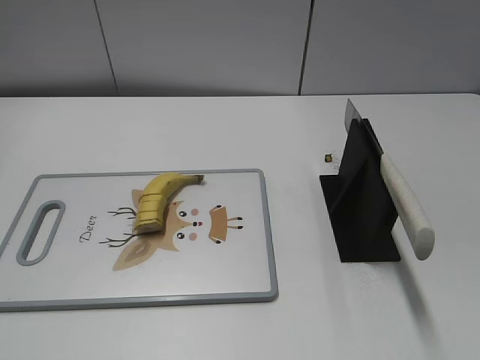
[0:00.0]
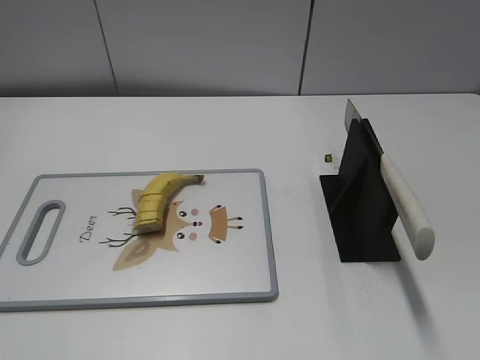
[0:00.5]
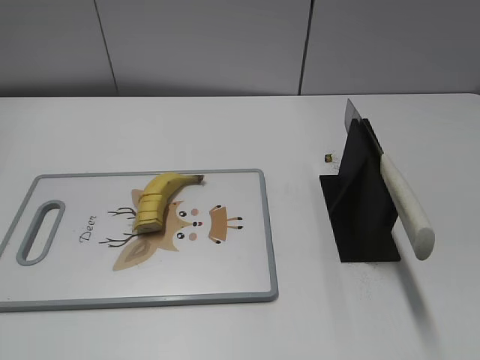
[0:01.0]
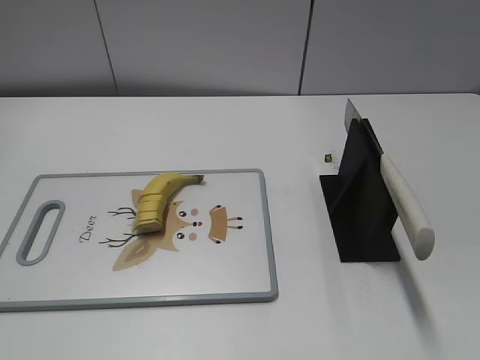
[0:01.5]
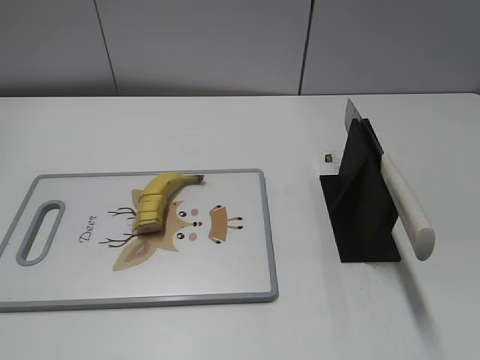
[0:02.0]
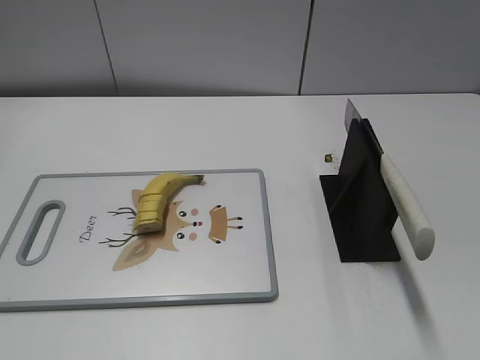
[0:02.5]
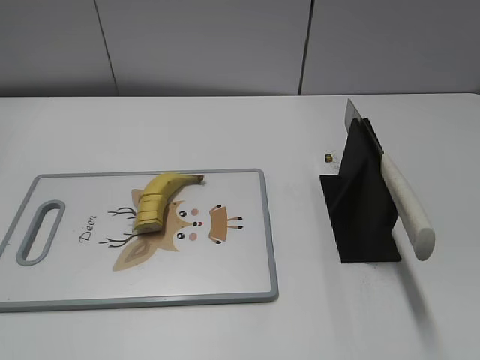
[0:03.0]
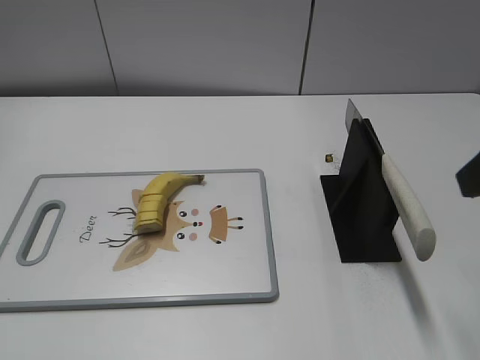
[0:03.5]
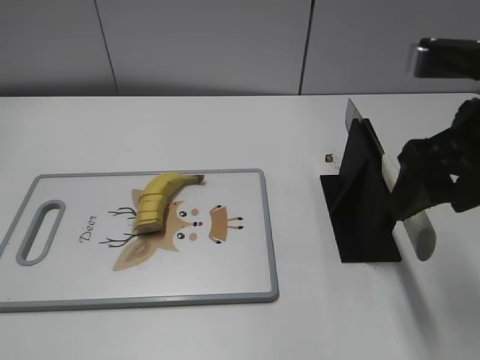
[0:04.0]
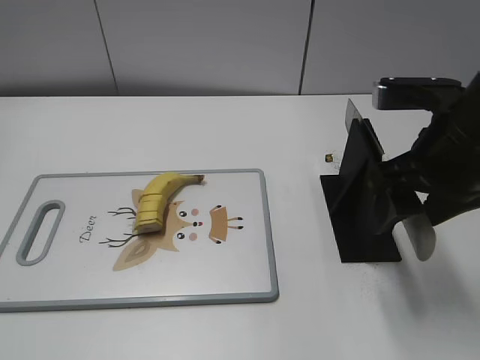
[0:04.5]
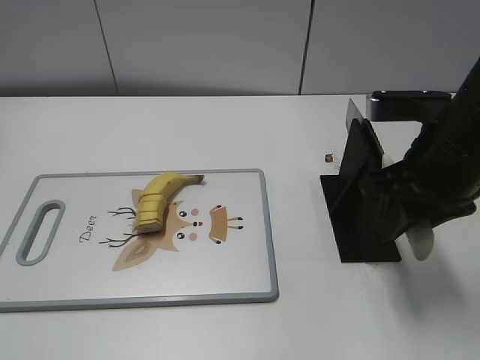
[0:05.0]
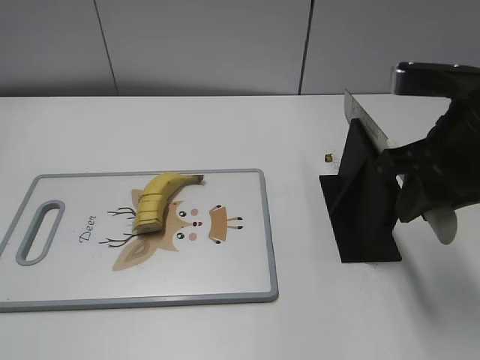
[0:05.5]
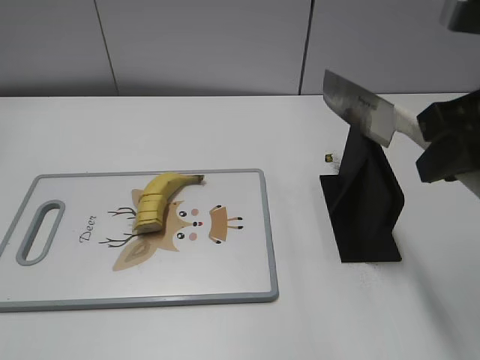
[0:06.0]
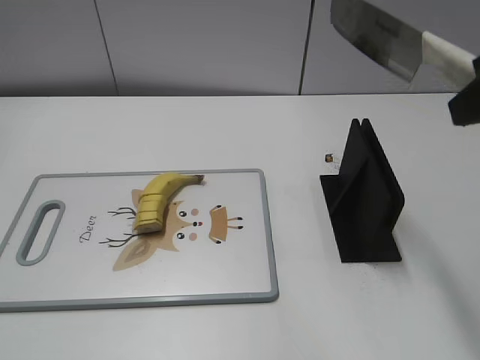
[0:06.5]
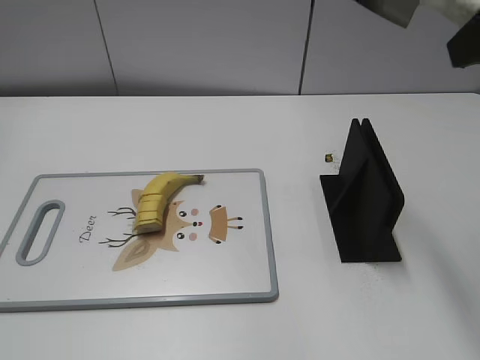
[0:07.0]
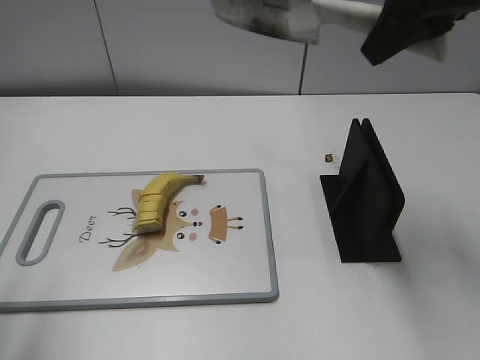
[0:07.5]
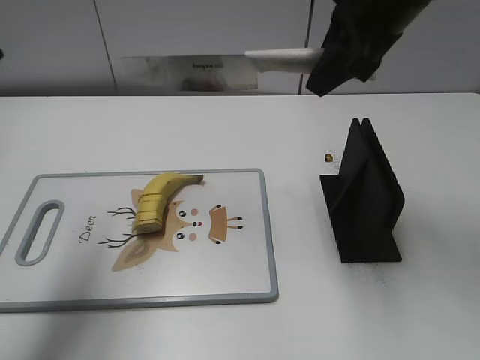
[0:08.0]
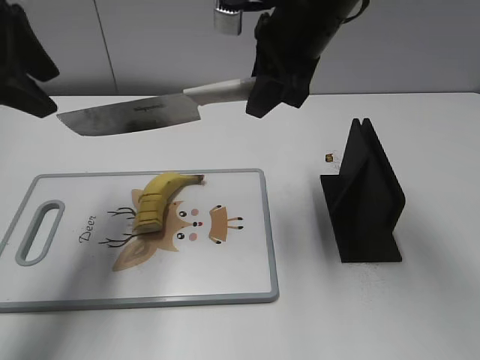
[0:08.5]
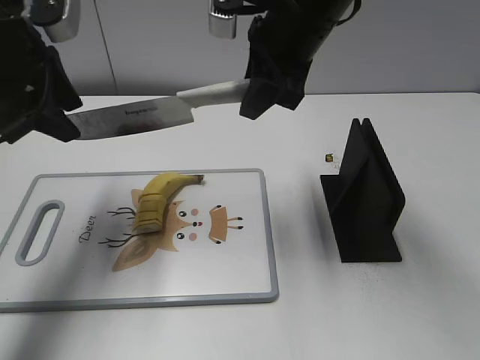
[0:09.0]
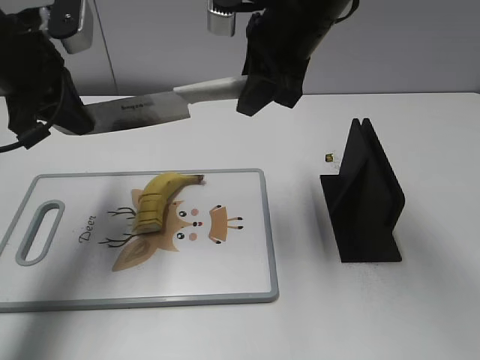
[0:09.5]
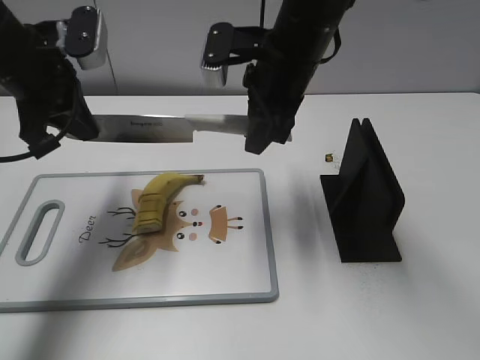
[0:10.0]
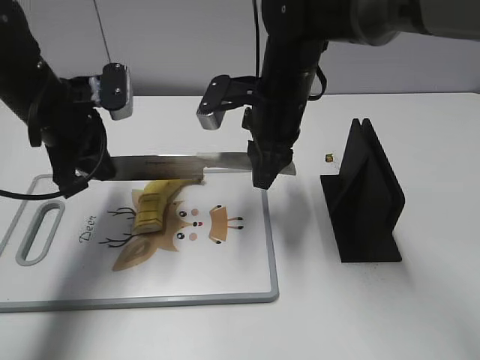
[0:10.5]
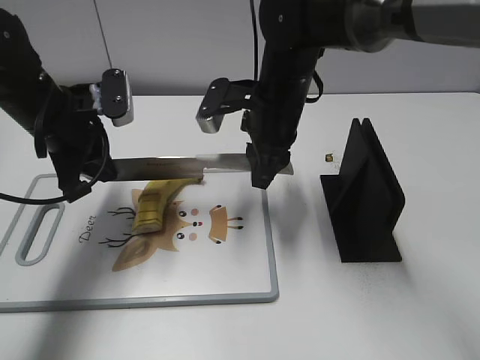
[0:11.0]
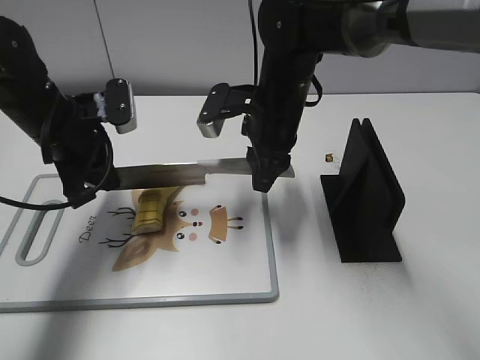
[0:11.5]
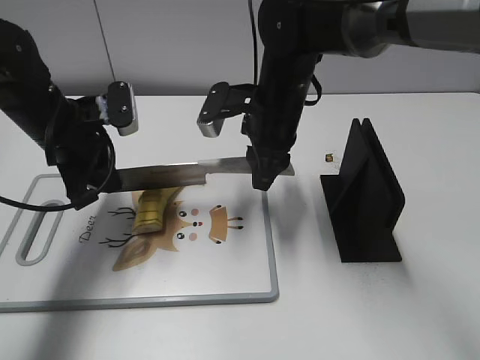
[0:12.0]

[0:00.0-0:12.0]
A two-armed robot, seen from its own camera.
Task of the whole recording: cut banana.
Step, 0:00.0 to 0:06.0: Grab the knife handle with your right hand.
0:02.0 to 0:04.0: The right gripper travels forward by approximately 25 cm.
0:04.0 to 0:06.0: The right gripper closes.
0:06.0 to 0:08.0: The left gripper shifts about 25 cm forward and upward. The right gripper is displaced forward and to the left by approximately 15 cm.
0:08.0 to 0:10.0: The right gripper moves downward and to the left, approximately 10 cm; the left gripper heads downward and forward, covering about 15 cm, and closes.
0:10.0 to 0:12.0: Both grippers move downward, about 10 cm.

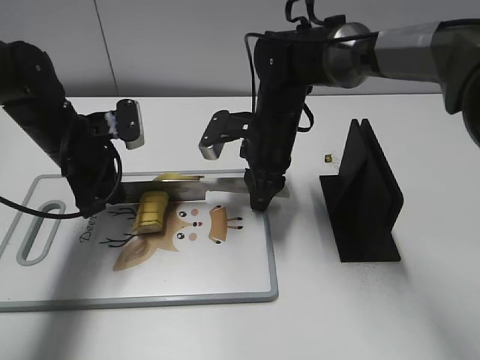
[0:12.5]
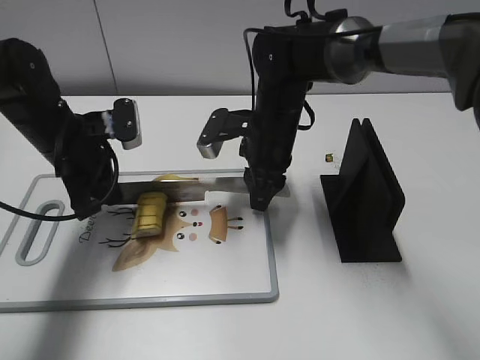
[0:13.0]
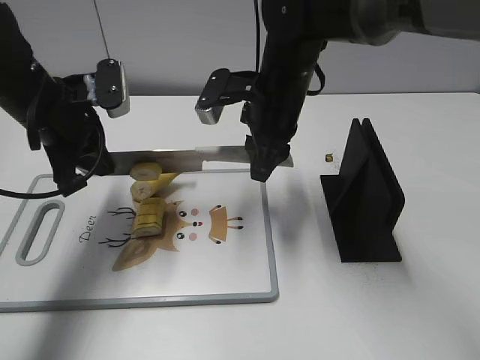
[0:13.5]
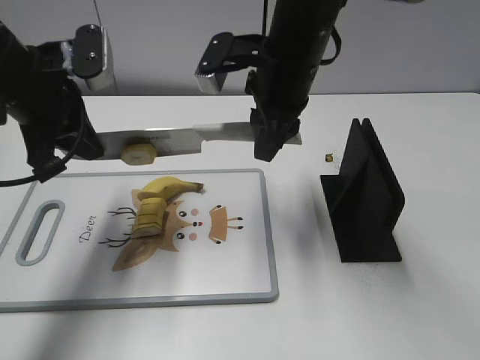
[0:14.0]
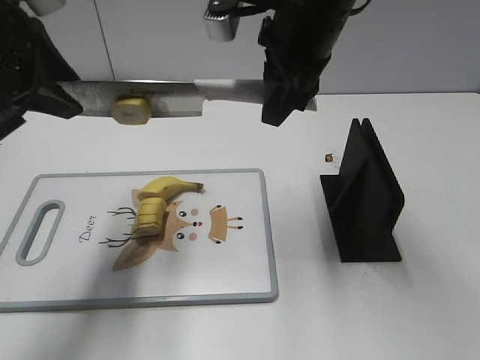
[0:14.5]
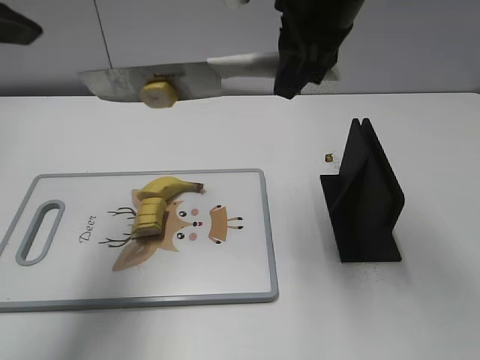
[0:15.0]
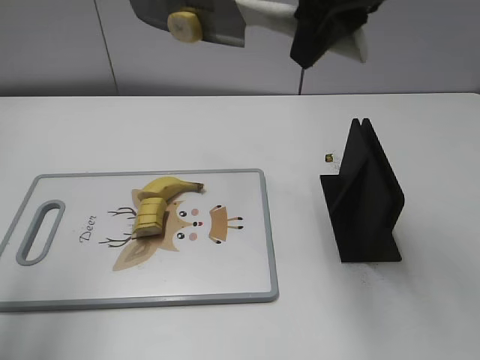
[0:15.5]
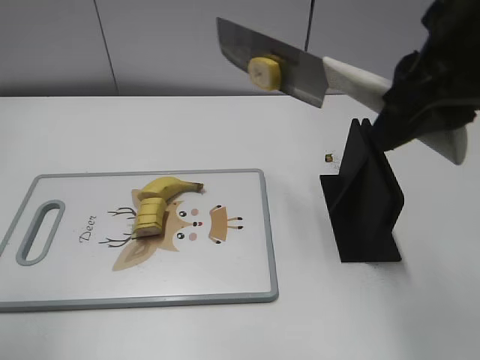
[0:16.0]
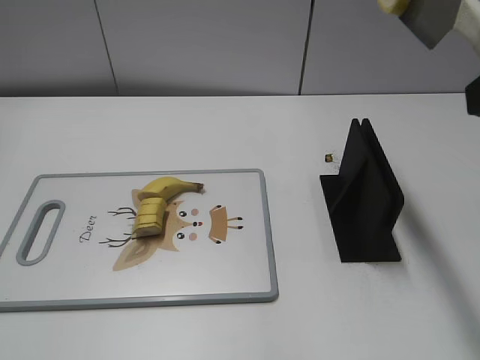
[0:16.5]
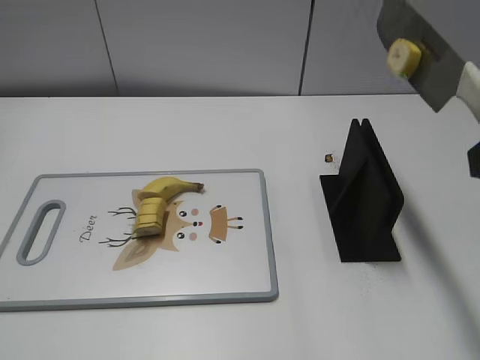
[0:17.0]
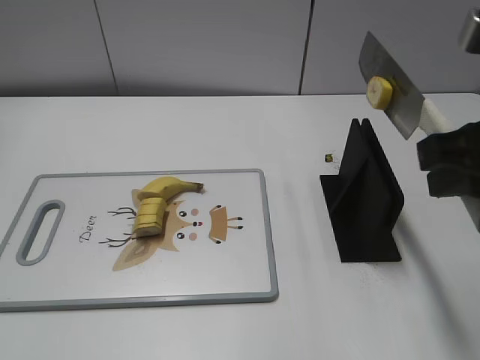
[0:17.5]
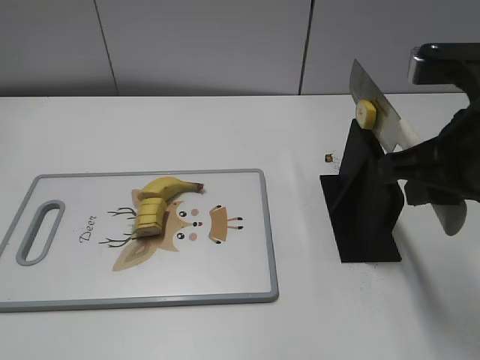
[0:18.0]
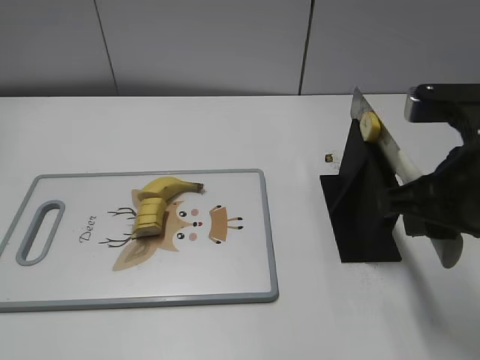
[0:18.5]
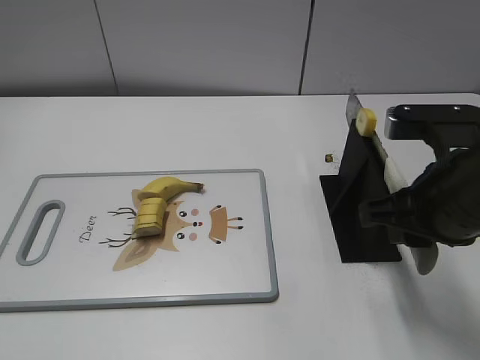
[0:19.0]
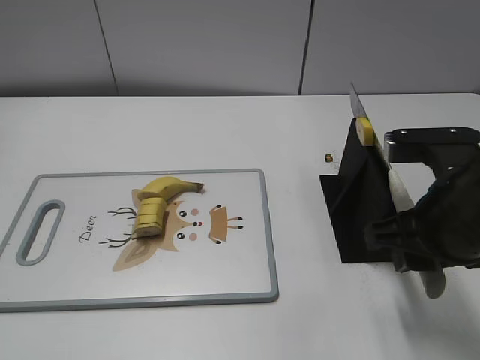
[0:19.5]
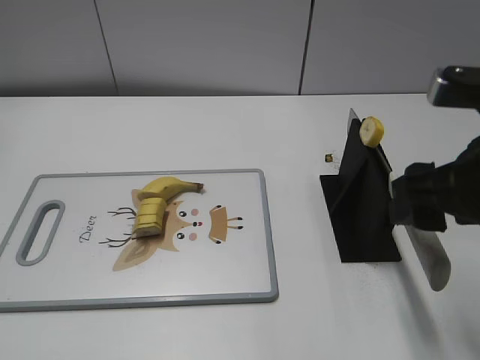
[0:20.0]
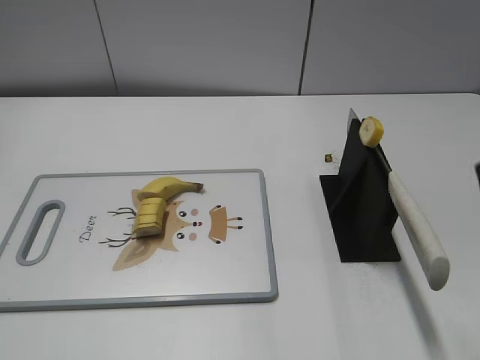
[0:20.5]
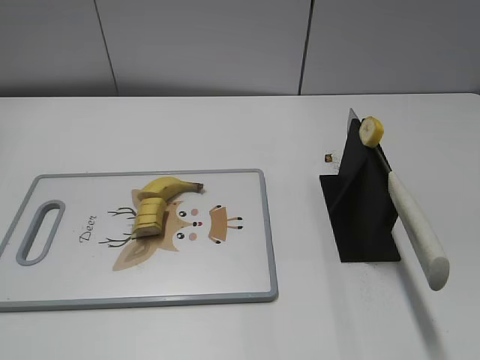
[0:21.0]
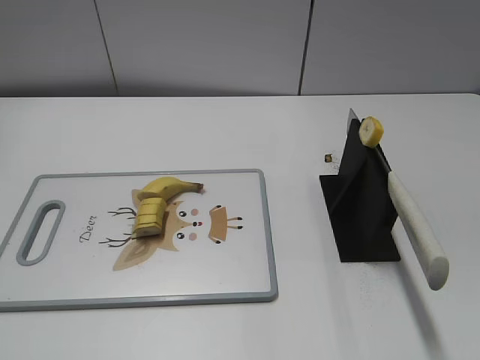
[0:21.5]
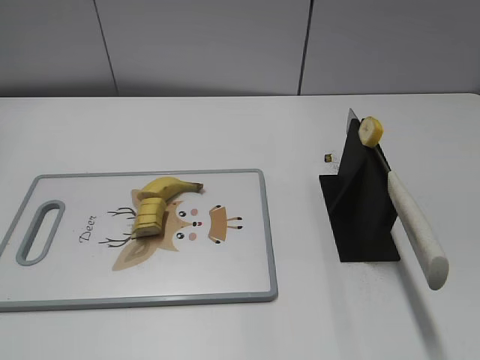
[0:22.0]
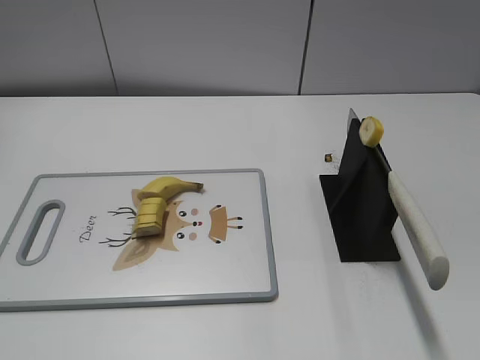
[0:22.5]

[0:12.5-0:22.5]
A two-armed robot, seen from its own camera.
Task of the whole recording: cut banana.
Step, 0:12.5 to 0:15.5: Cut the banana with your left hand.
Step, 0:16.0 to 0:18.0: Lift the knife with your right hand.
Step, 0:18.5 to 0:22.5: Place the knife on the storage rack with your right hand.
0:12.5 to 0:14.5: The left gripper heads upward and backward, covering roughly 20 cm, and opens its fingers; the right gripper shifts approximately 20 cm upward.
0:14.5 to 0:16.5: The right gripper heads backward, to the right and upward, covering about 25 cm. The left gripper travels backward by about 25 cm.
0:16.5 to 0:18.5: The right gripper goes roughly 15 cm downward.
0:18.5 to 0:20.5: The right gripper heads upward and backward, covering roughly 15 cm, and opens up.

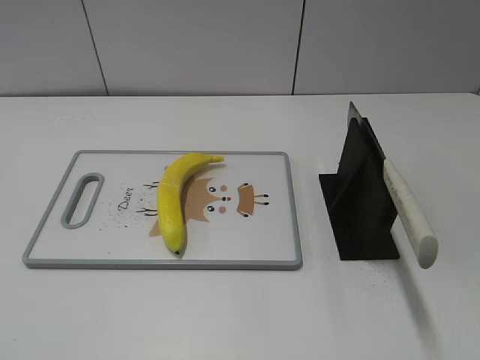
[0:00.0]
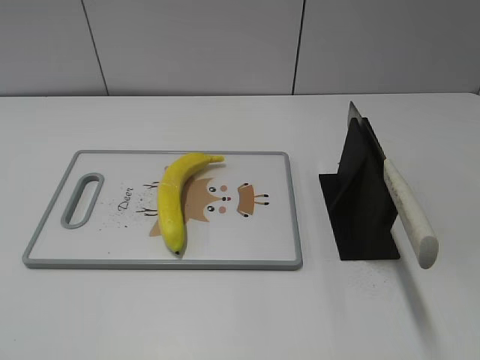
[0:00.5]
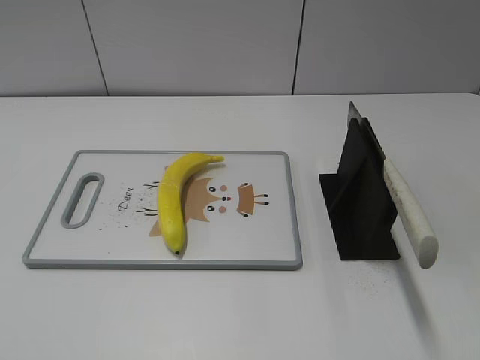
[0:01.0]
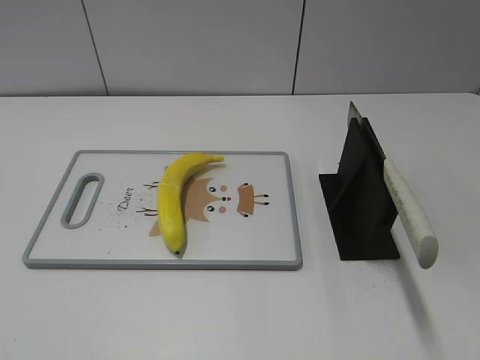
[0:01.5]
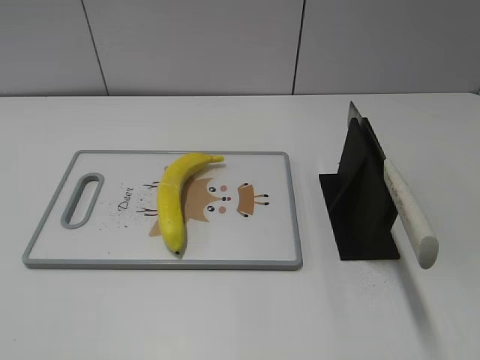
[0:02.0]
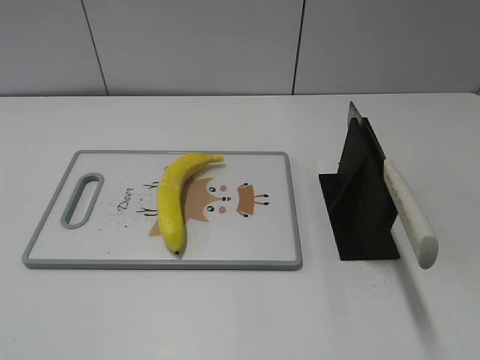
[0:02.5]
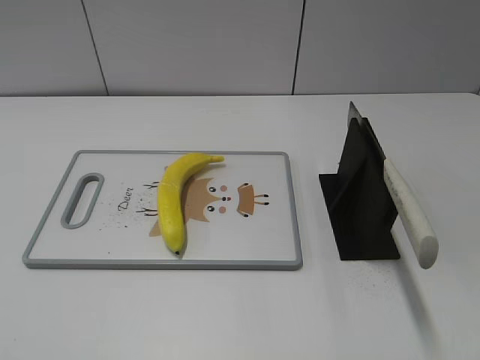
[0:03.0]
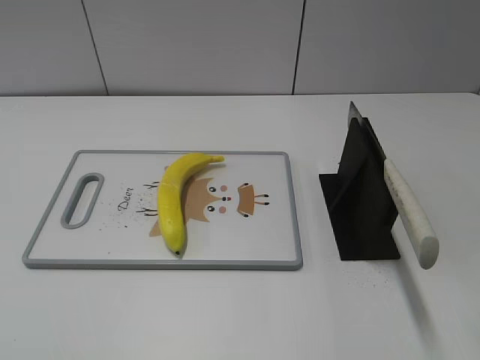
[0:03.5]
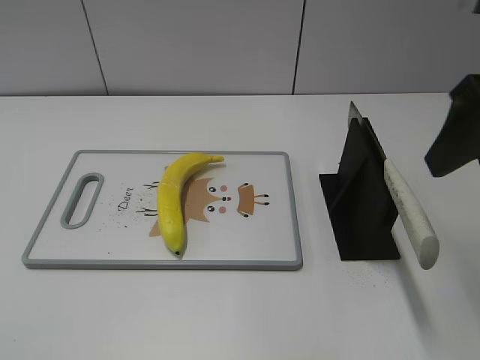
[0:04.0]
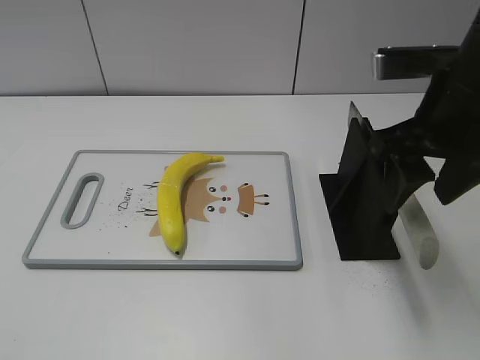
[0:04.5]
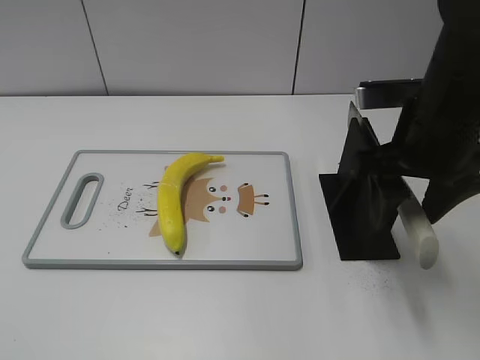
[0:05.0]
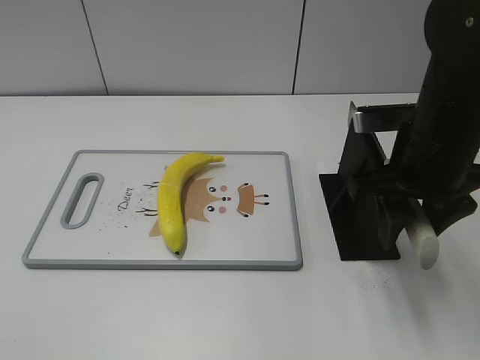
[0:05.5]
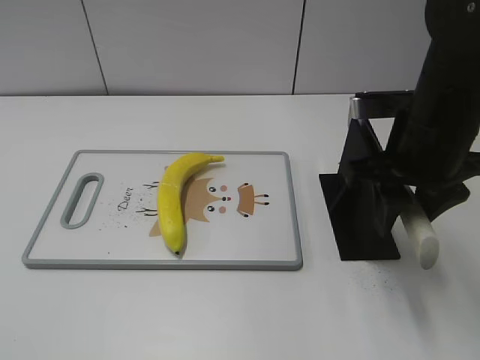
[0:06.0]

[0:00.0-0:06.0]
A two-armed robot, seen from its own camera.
Task of the whole recording: cut plastic banana.
0:02.0 to 0:04.0: The right gripper travels forward by roughly 20 cm.
0:04.0 to 0:06.0: The right gripper is displaced downward and to the left by some 10 cm, and closes its fingers.
